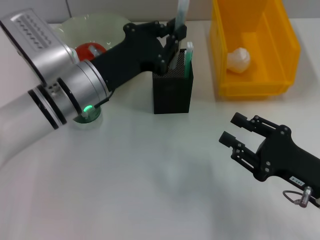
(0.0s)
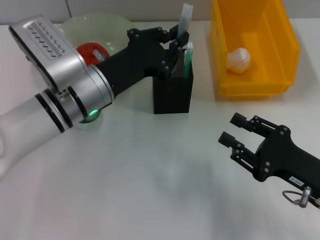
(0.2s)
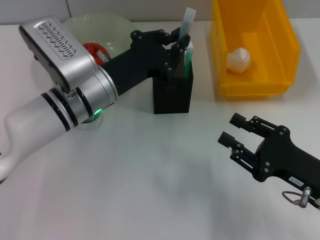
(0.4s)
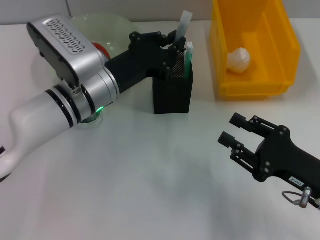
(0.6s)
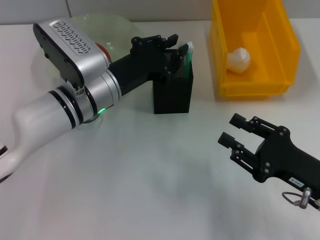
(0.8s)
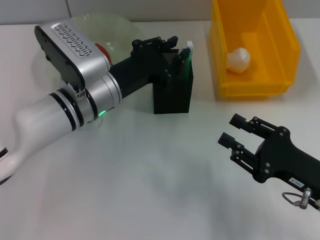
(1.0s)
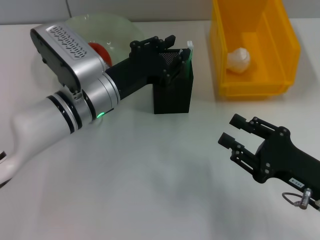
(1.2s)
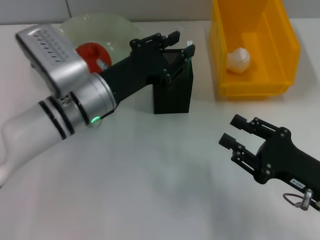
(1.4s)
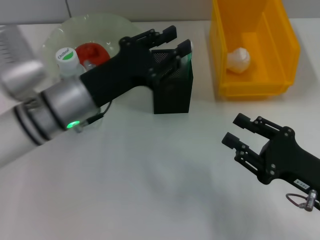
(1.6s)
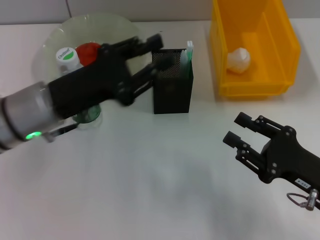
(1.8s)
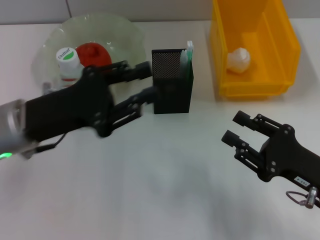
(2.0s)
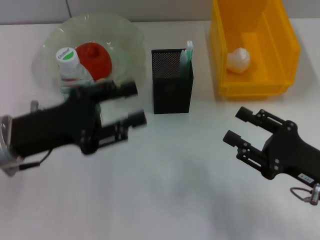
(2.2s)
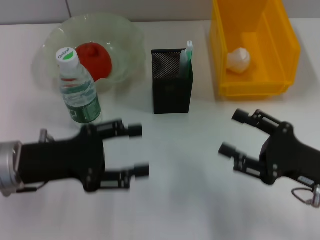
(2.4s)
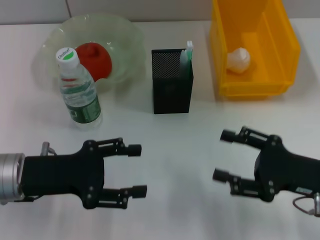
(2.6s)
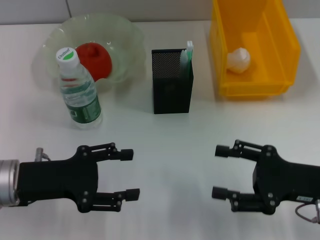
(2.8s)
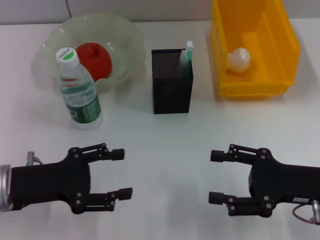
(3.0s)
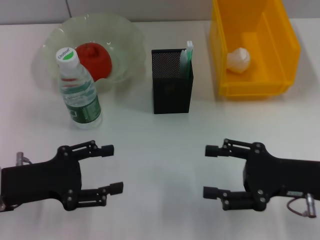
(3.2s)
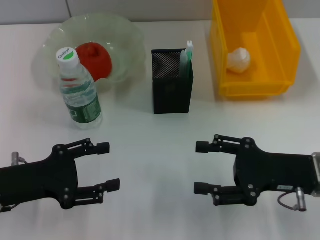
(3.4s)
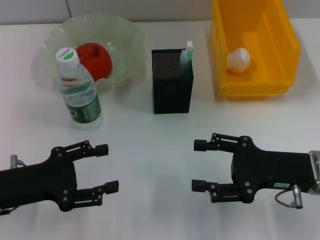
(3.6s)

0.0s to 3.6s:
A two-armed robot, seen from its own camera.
0.0s to 1.8s: The left gripper travels to the left by roughly 5 cm, and opens up.
1.8s to 3.6s: The left gripper travels to the left, backward and downward by some 10 cm, and opens up. Meanwhile the right gripper changes place by approximately 5 cm, and opens its fingers.
